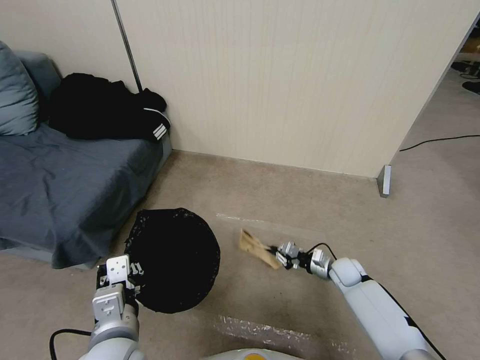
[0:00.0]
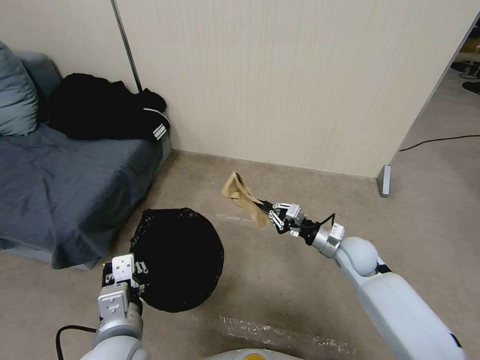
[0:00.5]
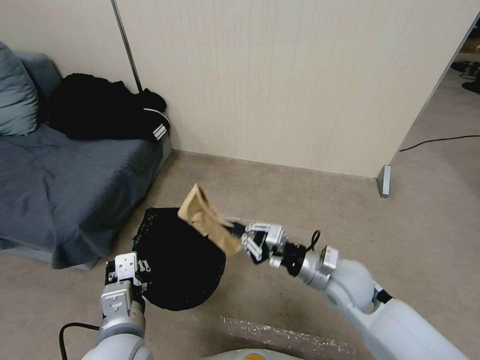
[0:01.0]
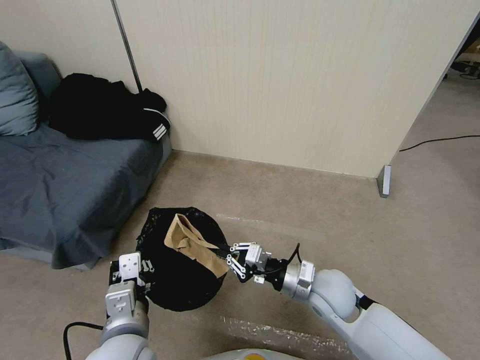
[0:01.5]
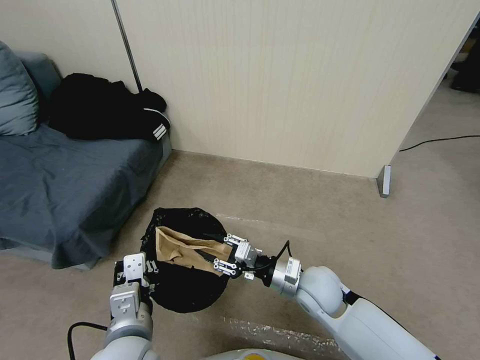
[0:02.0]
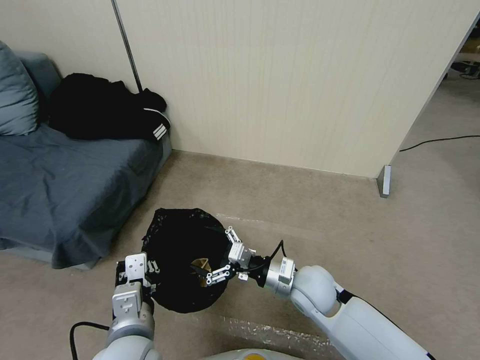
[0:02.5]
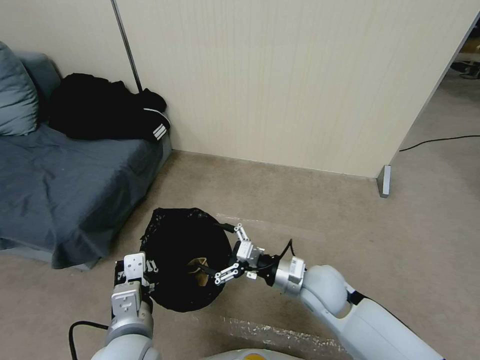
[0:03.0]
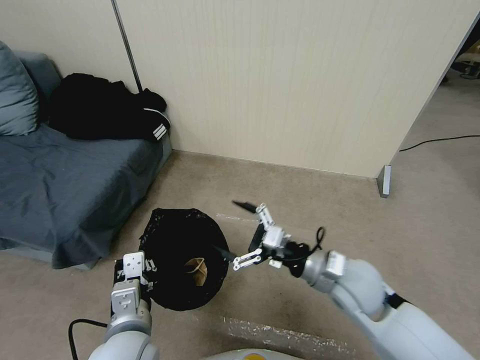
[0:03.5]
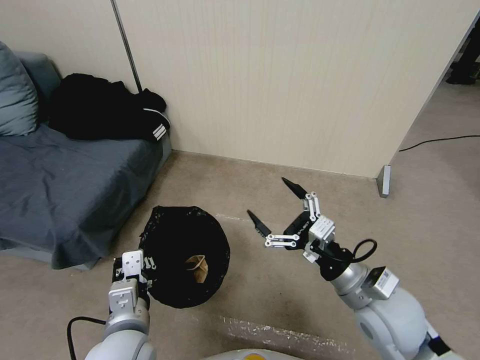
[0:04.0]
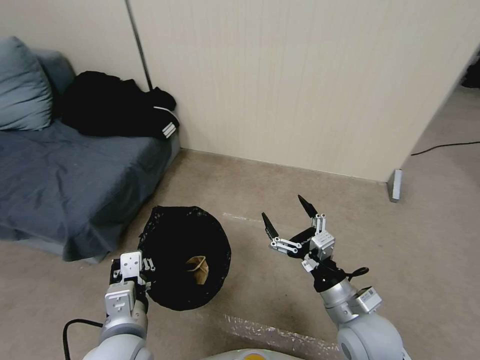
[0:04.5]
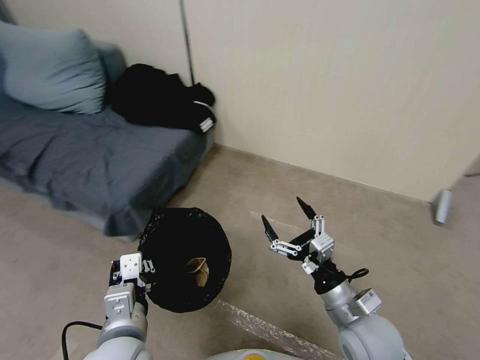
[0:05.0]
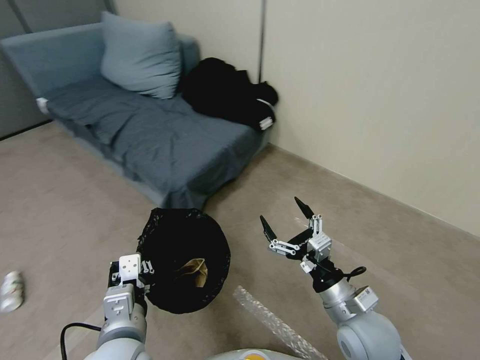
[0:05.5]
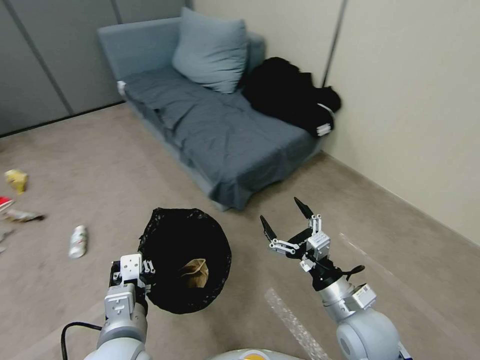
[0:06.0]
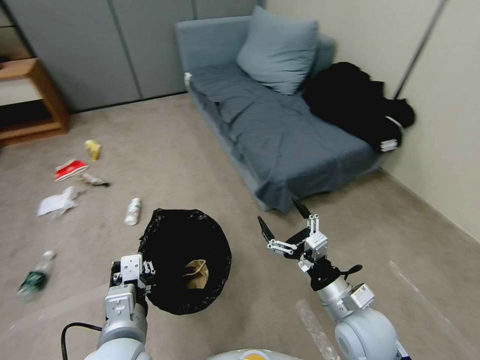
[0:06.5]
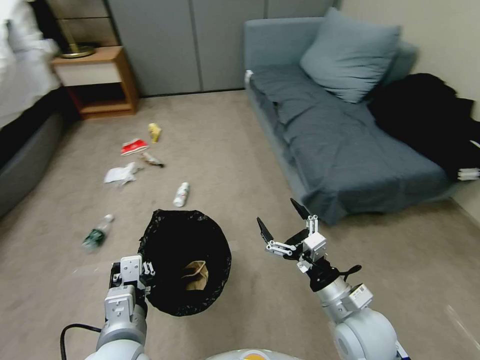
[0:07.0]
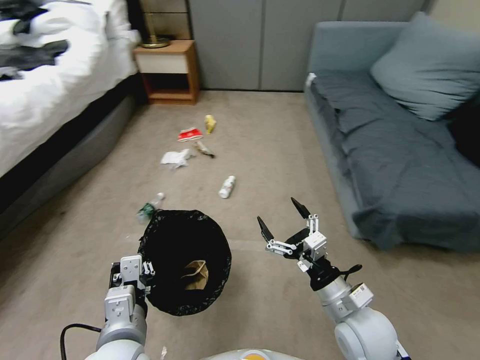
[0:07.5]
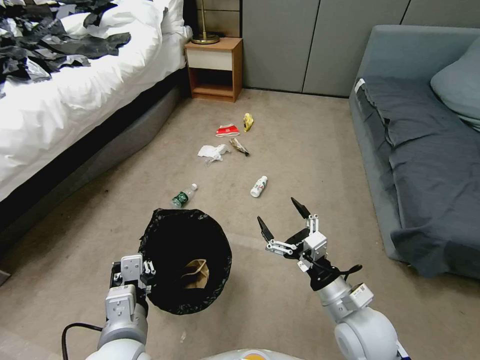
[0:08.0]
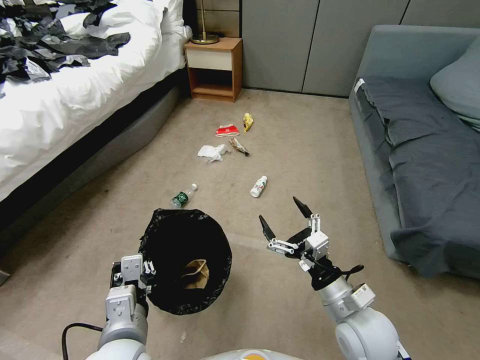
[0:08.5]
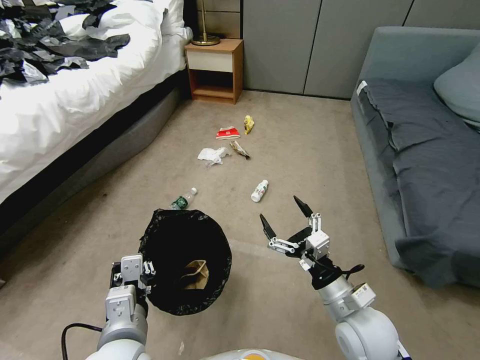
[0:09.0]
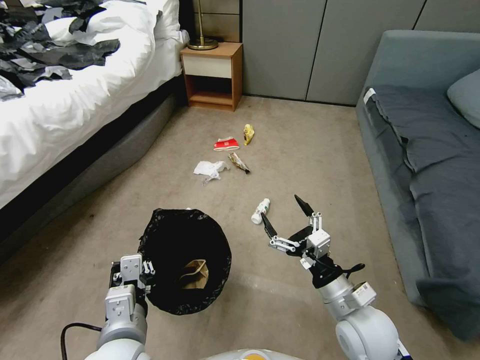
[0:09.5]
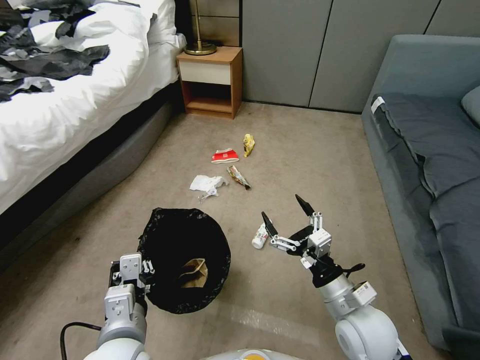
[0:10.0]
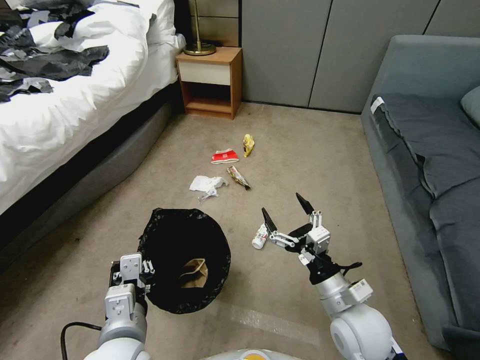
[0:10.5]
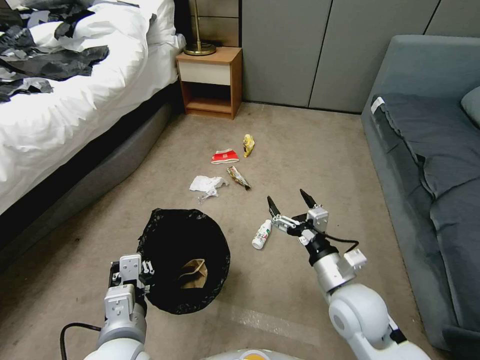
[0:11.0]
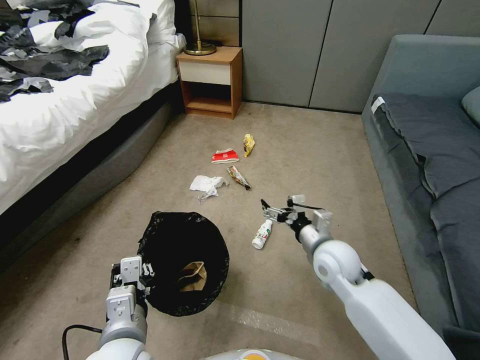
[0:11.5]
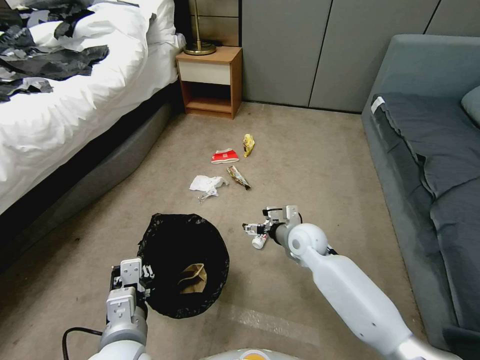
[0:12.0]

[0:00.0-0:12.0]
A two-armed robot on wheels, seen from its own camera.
Task of the whole recording: Pick up the trash bin, then pick up the garbage from the floor and place it into the trash bin.
0:00.0 to 0:02.0: The right gripper goes roughly 25 cm upward, to the left and backward, and opens its fingers.
0:02.0 to 0:04.0: The right gripper heads upward, to the right and backward, covering roughly 15 cm, and opens.
0:04.0 to 0:06.0: The right gripper is displaced downward by approximately 5 cm.
0:10.0 to 0:12.0: The right gripper heads forward, covering roughly 20 cm.

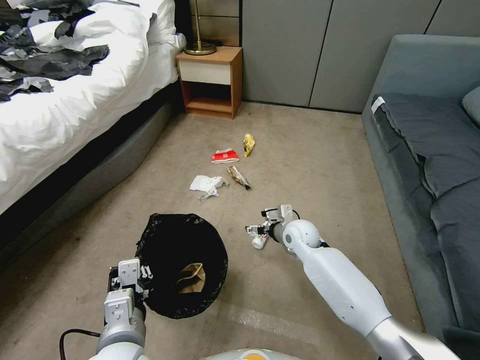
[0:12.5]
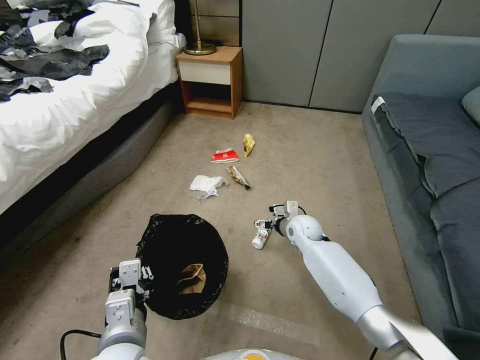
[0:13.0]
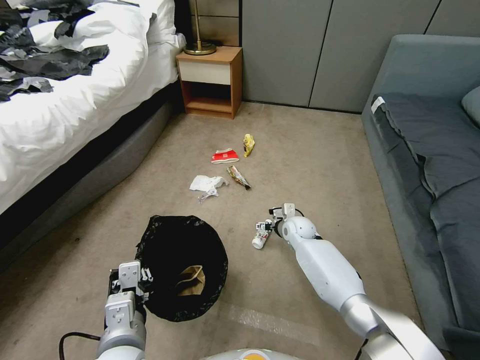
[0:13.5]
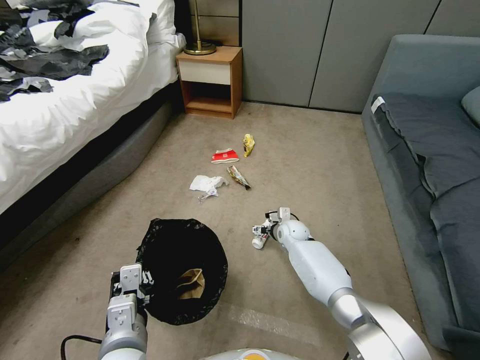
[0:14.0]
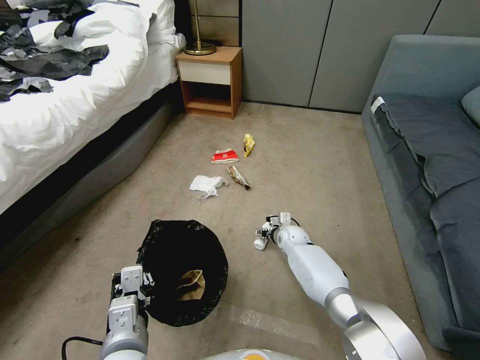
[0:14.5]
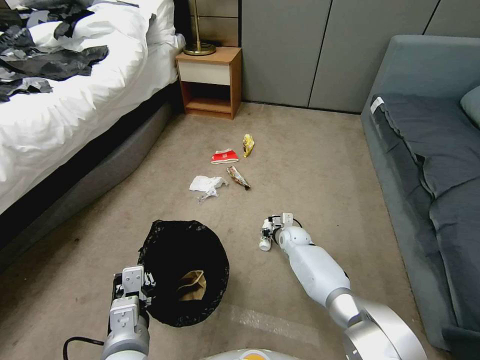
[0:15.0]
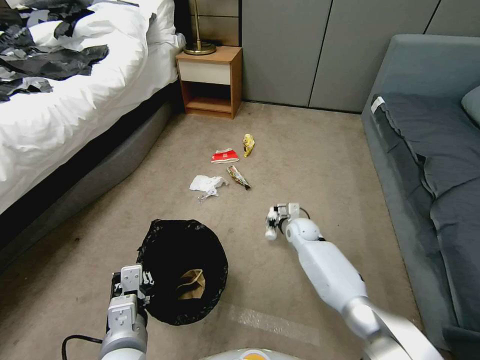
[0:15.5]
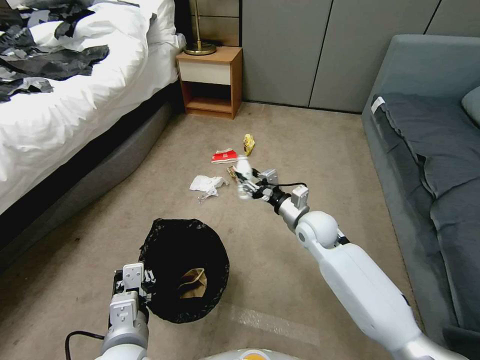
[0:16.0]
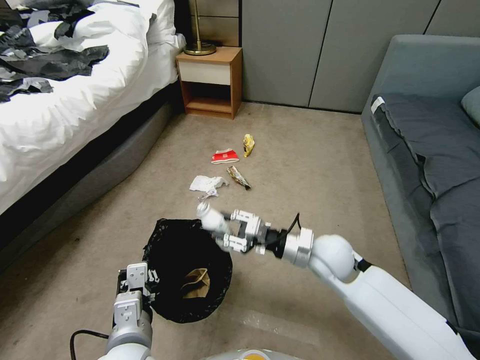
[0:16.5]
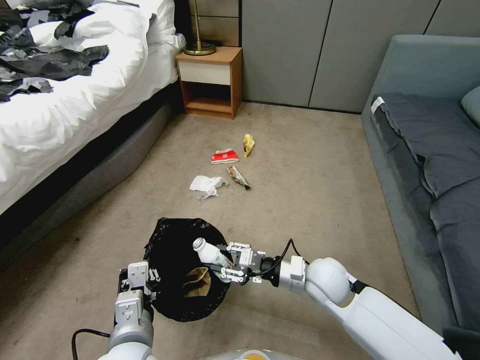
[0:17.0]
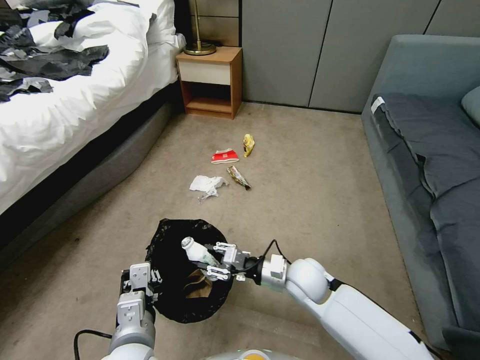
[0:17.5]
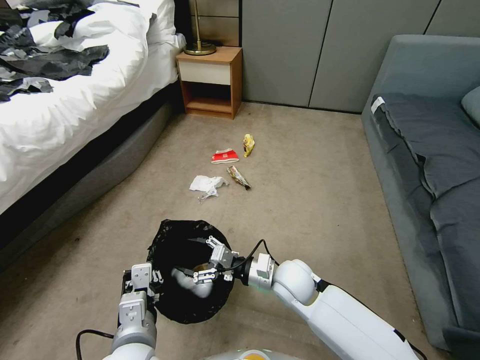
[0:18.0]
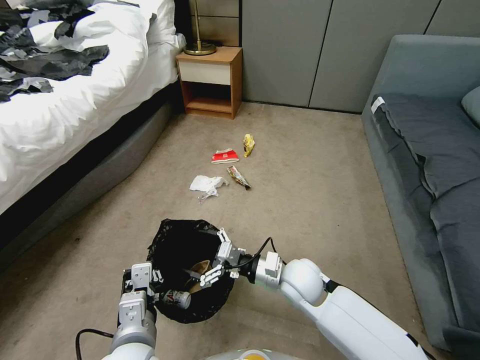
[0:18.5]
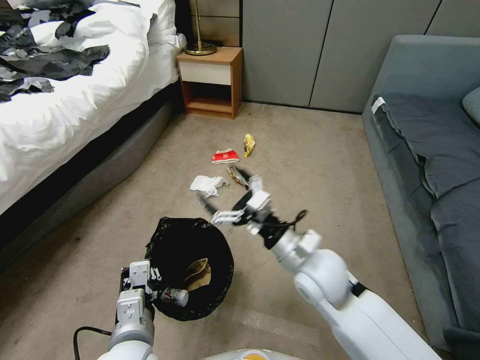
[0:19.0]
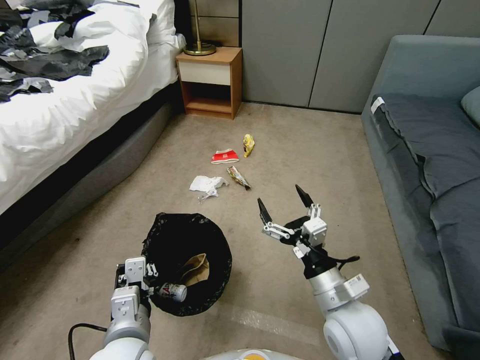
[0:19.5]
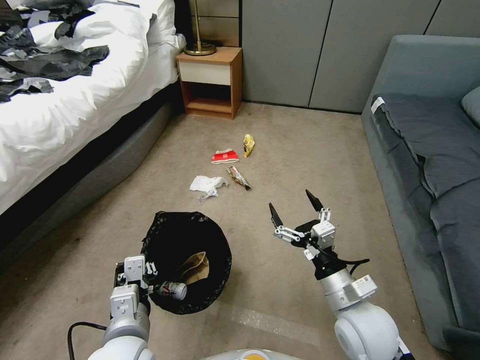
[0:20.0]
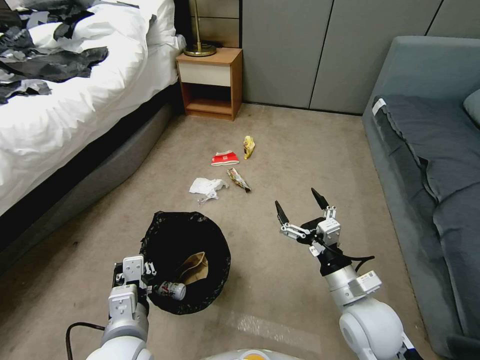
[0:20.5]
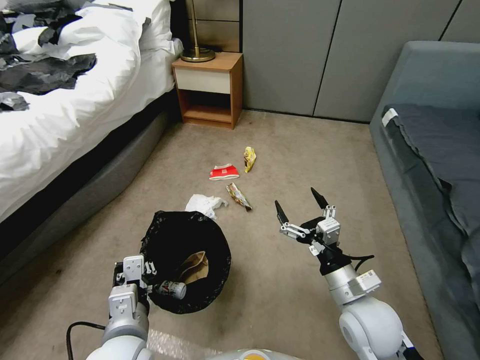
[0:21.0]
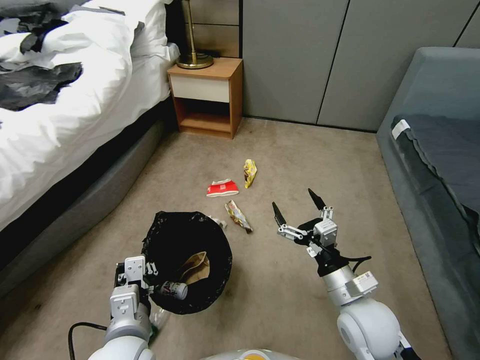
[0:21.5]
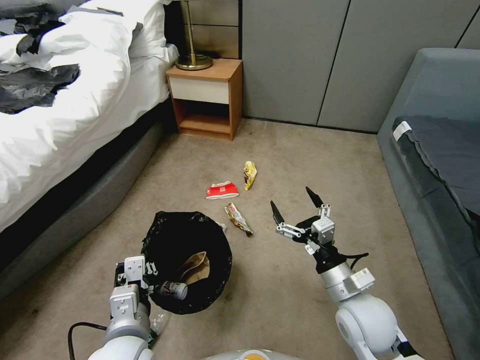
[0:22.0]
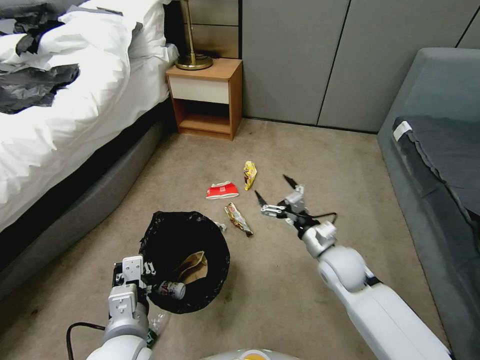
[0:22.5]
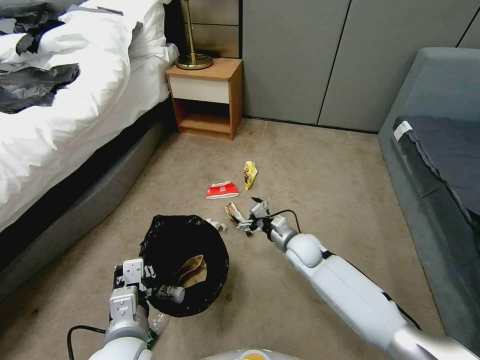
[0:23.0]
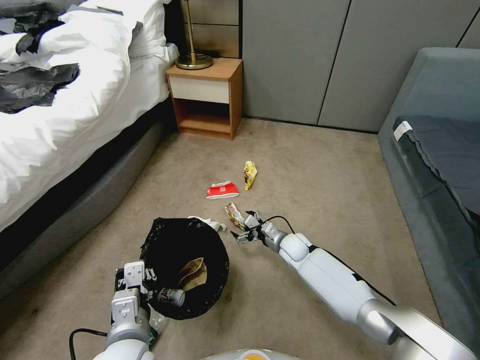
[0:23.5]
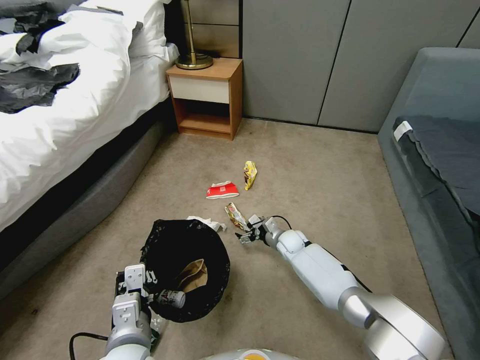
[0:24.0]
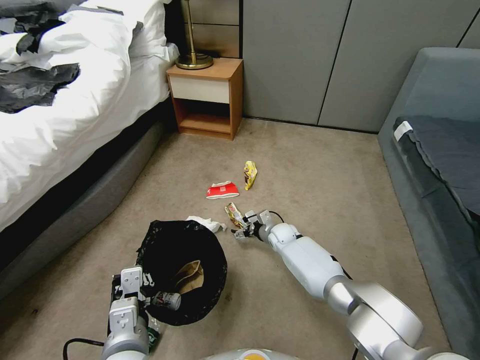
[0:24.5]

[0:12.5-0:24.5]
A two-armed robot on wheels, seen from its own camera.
Task of the whole recording: Pick up the trash bin, then pick up the garbage from the floor and place it into the trash bin.
0:12.5 to 0:14.5: The right gripper shifts about 10 cm downward.
0:14.5 to 0:16.5: The right gripper travels upward and backward by approximately 25 cm, and closes up.
0:16.5 to 0:18.5: The right gripper is displaced to the left and downward by about 10 cm, and opens its fingers.
0:18.5 to 0:20.5: The right gripper goes roughly 15 cm to the right and backward.
0:20.5 to 0:22.5: The right gripper moves forward, roughly 10 cm.
0:22.5 to 0:24.5: The right gripper shifts roughly 25 cm forward, downward and to the left.

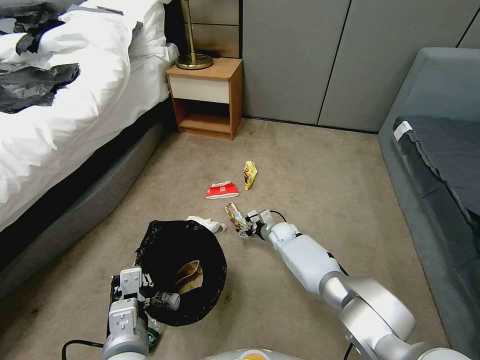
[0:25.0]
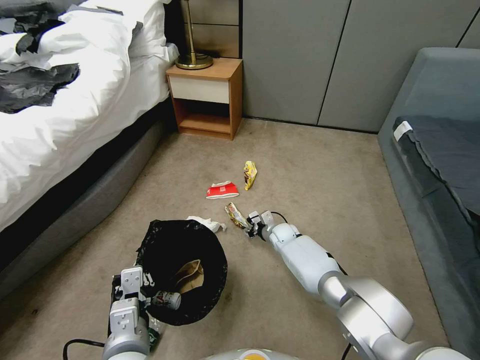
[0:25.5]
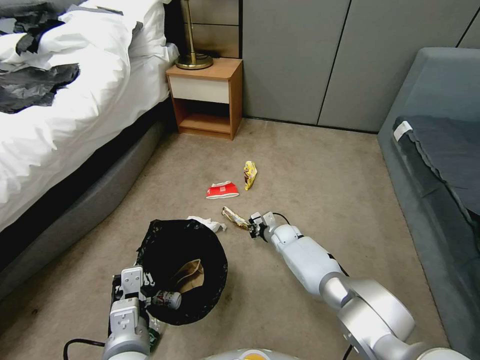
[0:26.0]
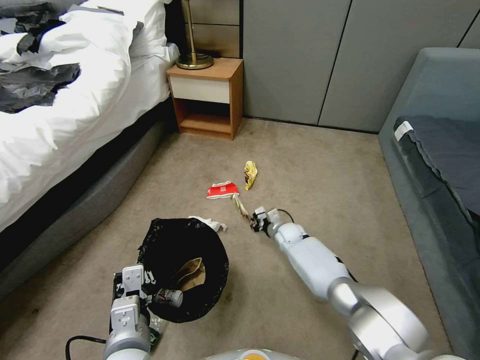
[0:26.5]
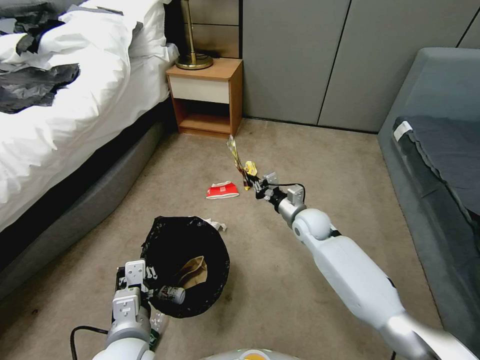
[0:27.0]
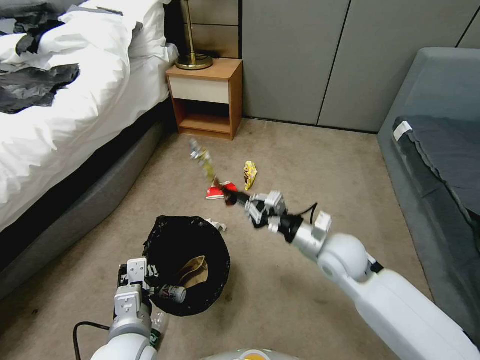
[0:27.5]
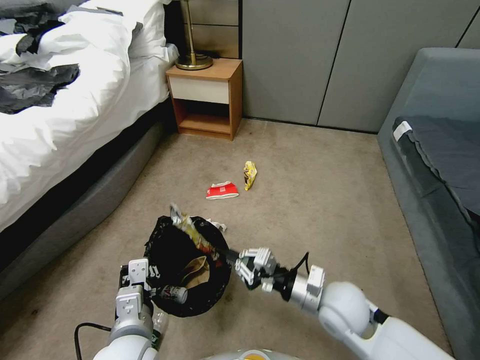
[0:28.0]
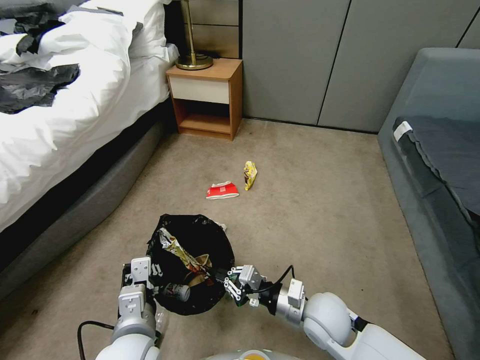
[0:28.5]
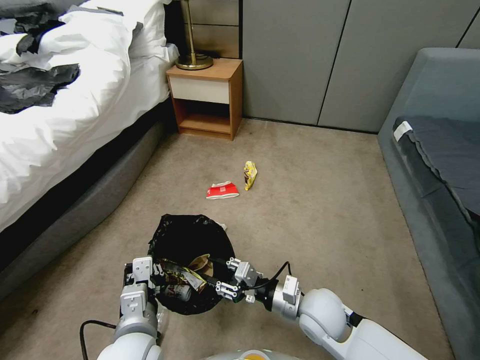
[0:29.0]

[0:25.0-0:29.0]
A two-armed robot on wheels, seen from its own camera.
Task of the whole recording: Pick up the trash bin, then pick up the garbage from the floor and place it into the trash bin.
0:25.0 to 0:27.0: The right gripper shifts roughly 15 cm upward, and closes.
0:27.0 to 0:29.0: The right gripper goes about 20 cm backward, and opens its fingers.
